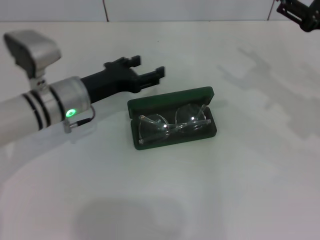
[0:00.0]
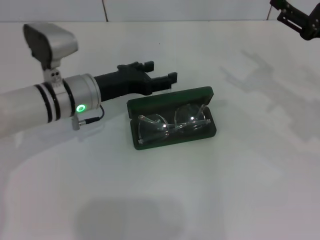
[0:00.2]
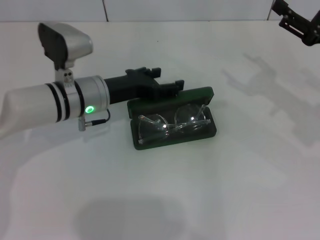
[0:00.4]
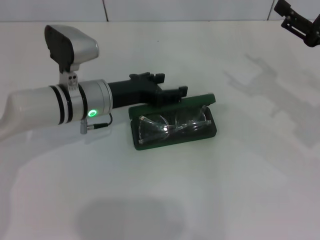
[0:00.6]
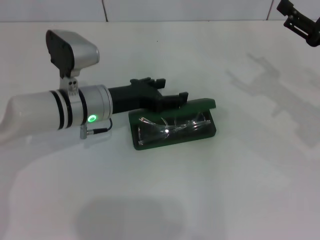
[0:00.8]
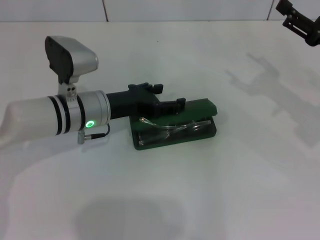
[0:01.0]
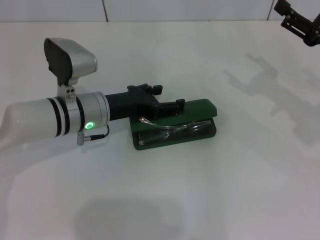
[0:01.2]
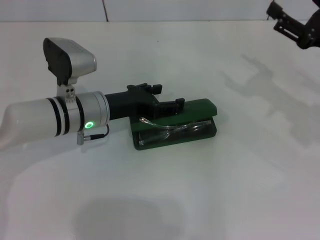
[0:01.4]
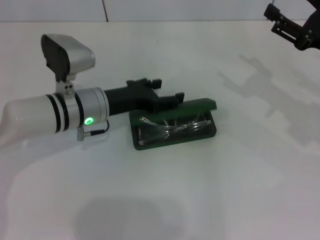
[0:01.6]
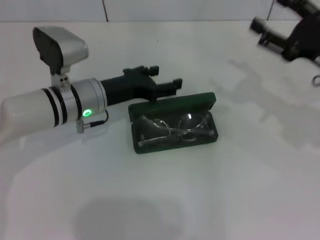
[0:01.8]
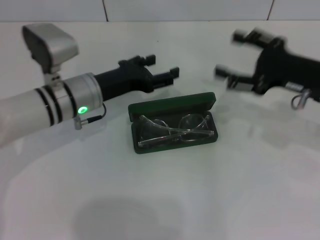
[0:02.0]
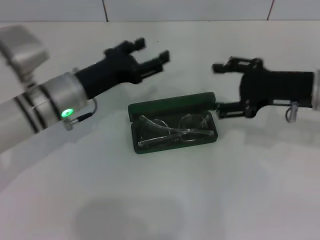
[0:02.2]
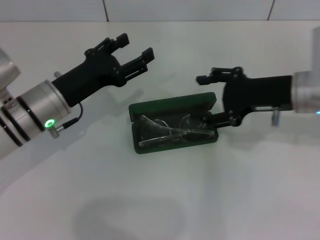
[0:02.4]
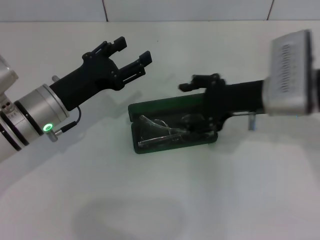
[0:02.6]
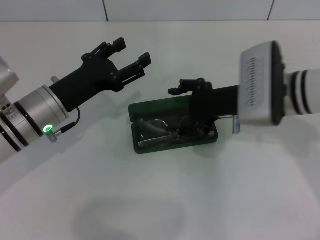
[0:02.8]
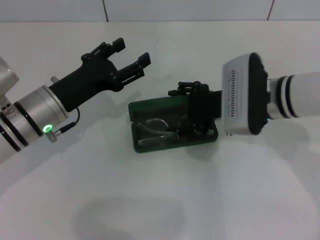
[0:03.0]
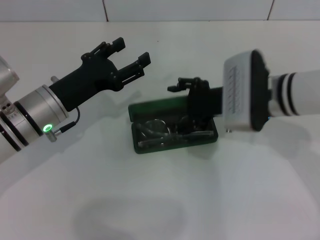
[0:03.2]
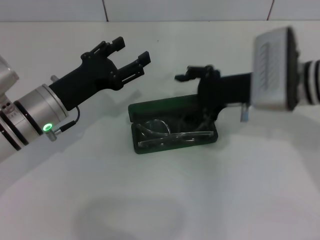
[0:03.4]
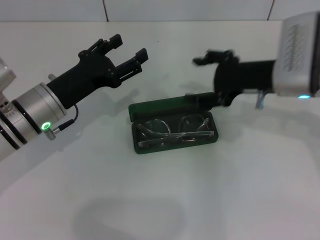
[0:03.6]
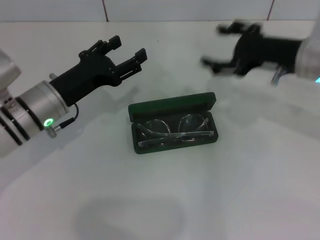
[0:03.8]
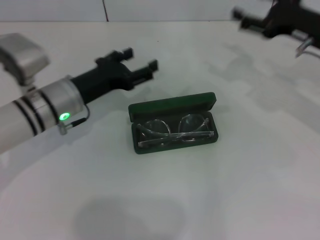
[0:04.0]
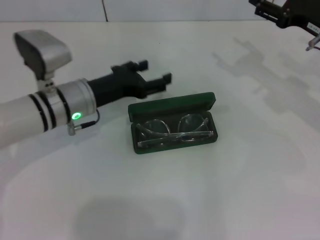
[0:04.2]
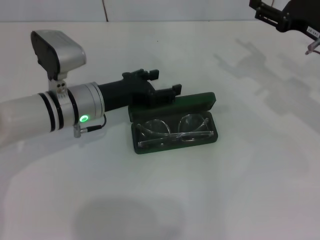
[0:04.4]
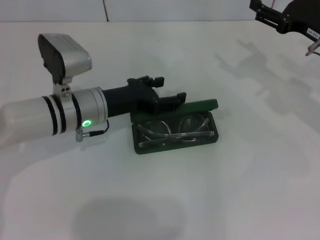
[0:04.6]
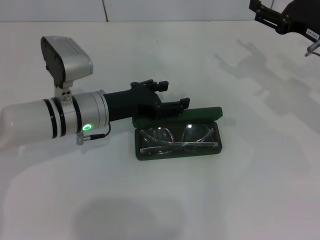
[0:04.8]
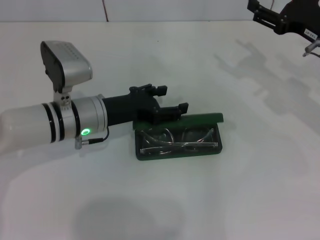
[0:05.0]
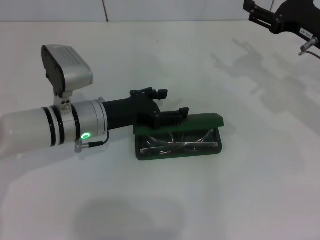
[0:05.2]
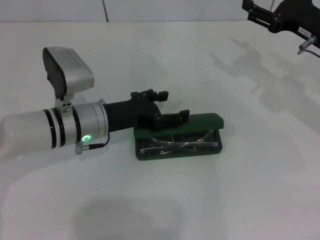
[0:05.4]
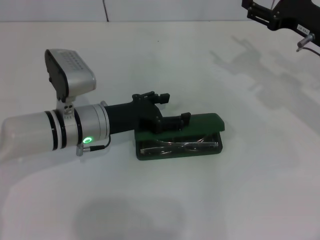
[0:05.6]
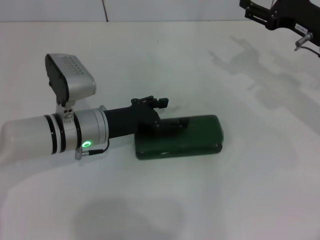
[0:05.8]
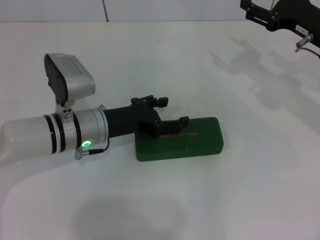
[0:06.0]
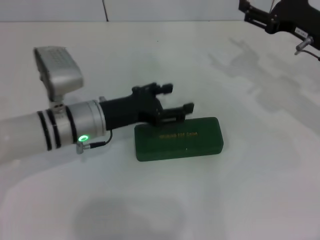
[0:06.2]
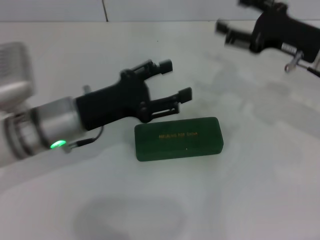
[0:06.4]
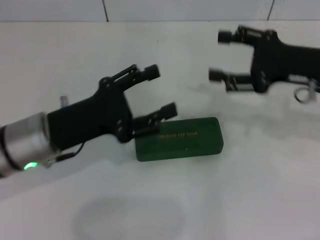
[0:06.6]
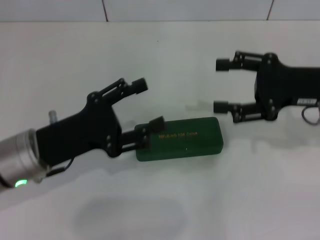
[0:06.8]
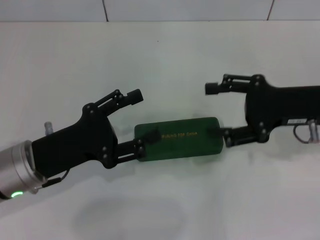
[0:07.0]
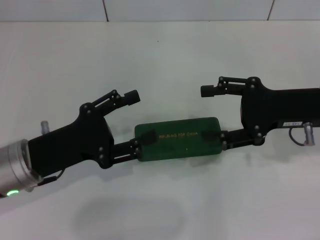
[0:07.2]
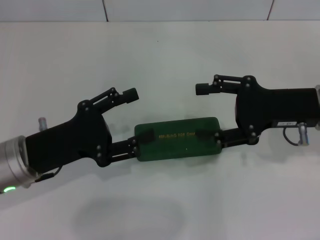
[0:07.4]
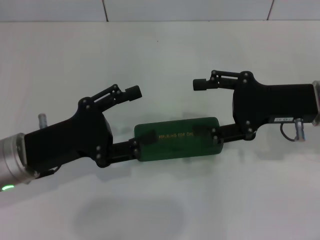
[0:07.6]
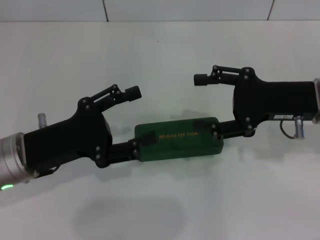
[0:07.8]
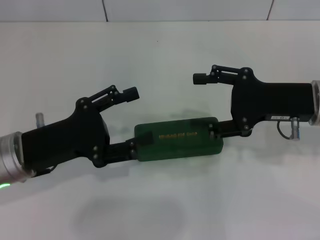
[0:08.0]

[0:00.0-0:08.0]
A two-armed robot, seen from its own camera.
Step, 0:00.0 to 0:03.0: Put the glasses into the case with your right hand.
Step, 0:03.4 to 0:05.8: Close the glasses case with your left hand.
0:00.0 to 0:01.6: The grippers stay close to where they were, moving slightly.
0:01.6 to 0:03.2: The left gripper goes some 5 cm to the left. Meanwhile the right gripper goes approximately 15 cm to the left.
0:03.2 to 0:04.8: The left gripper goes about 5 cm to the right. Meanwhile the right gripper goes roughly 15 cm to the right.
0:04.8 to 0:06.4: The left gripper changes place by about 5 cm.
0:06.4 to 0:08.0: The left gripper heads to the left and backward, covering about 10 cm; the right gripper goes approximately 5 cm backward.
